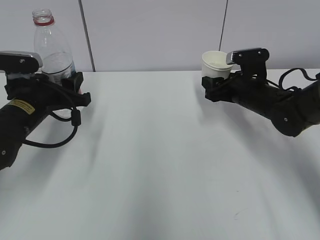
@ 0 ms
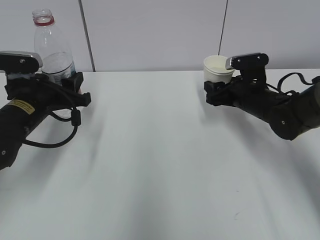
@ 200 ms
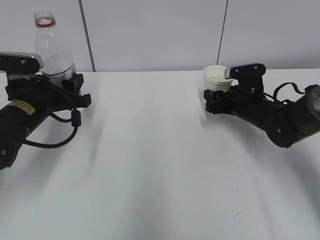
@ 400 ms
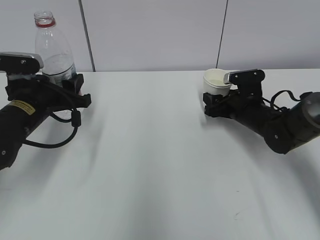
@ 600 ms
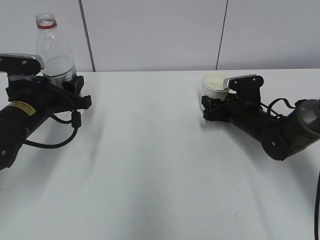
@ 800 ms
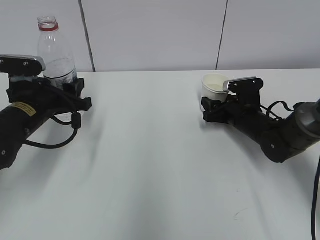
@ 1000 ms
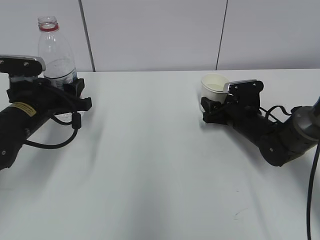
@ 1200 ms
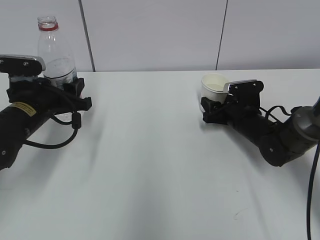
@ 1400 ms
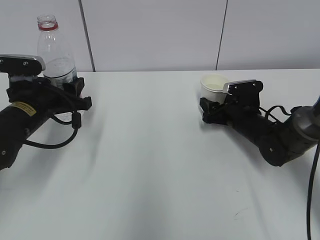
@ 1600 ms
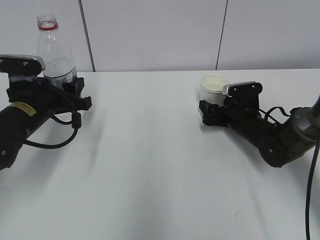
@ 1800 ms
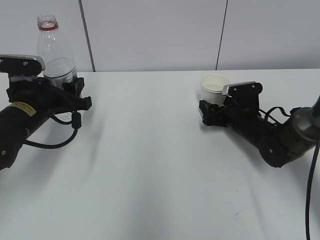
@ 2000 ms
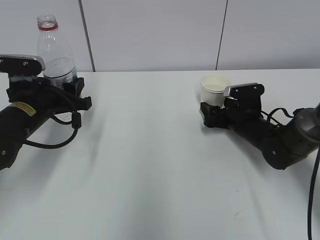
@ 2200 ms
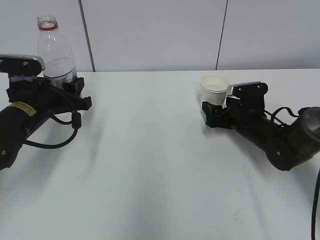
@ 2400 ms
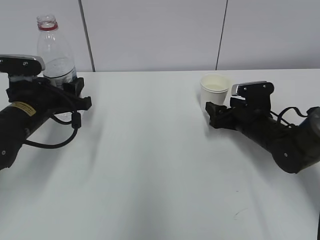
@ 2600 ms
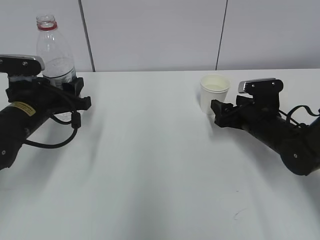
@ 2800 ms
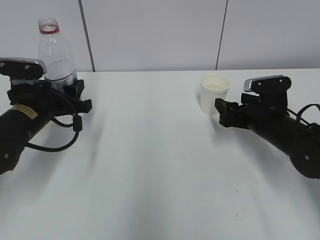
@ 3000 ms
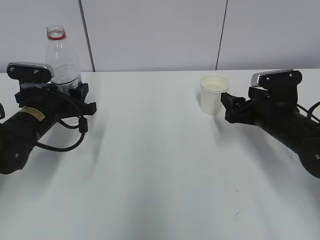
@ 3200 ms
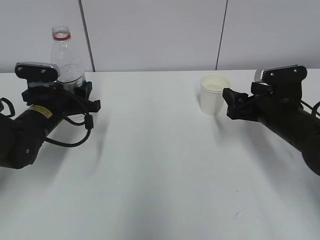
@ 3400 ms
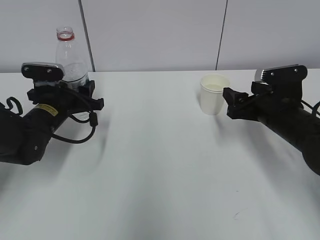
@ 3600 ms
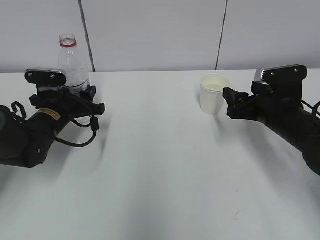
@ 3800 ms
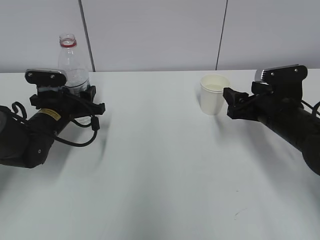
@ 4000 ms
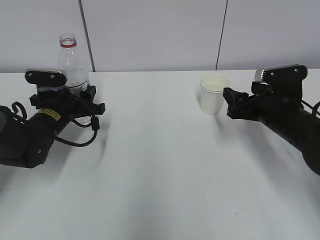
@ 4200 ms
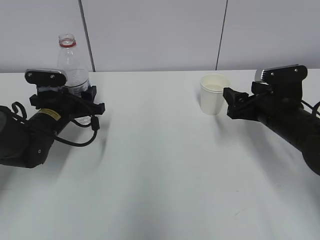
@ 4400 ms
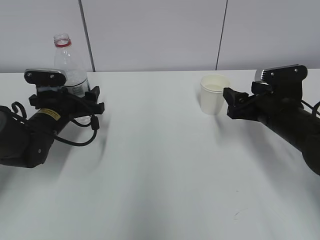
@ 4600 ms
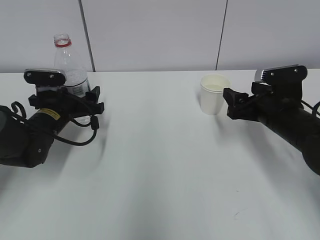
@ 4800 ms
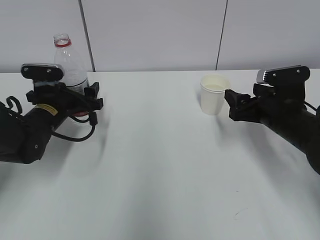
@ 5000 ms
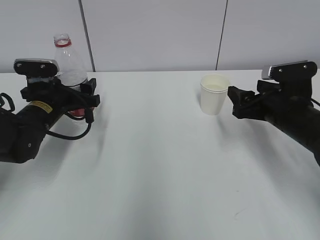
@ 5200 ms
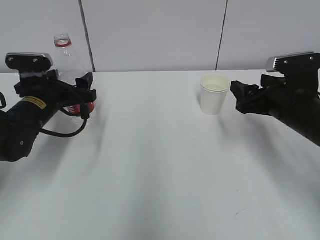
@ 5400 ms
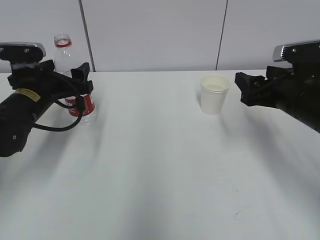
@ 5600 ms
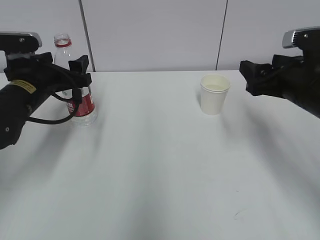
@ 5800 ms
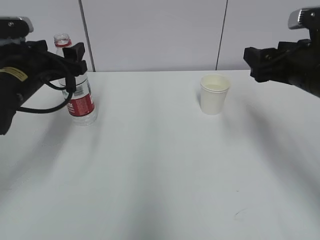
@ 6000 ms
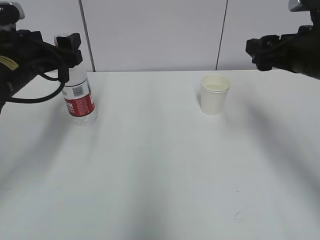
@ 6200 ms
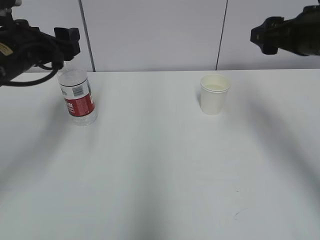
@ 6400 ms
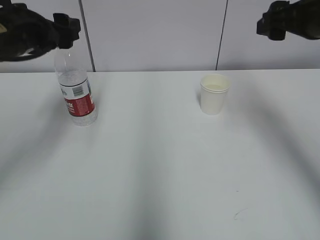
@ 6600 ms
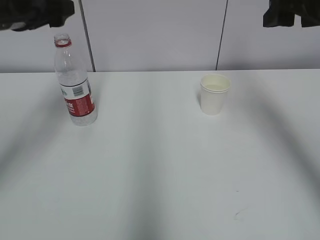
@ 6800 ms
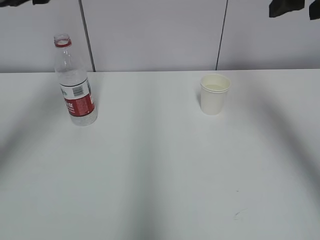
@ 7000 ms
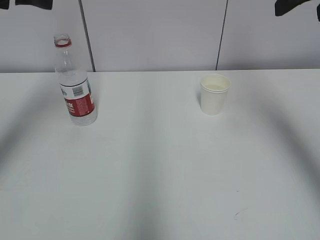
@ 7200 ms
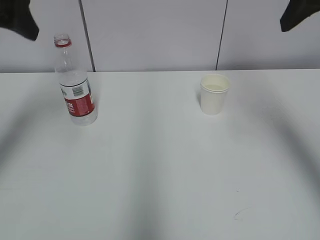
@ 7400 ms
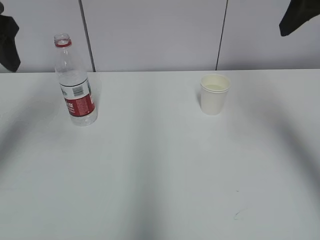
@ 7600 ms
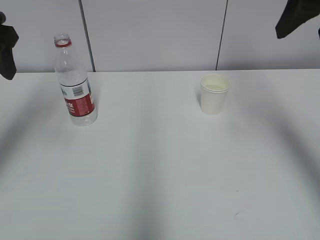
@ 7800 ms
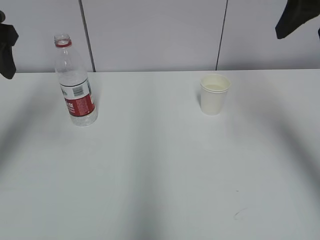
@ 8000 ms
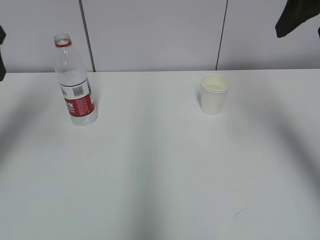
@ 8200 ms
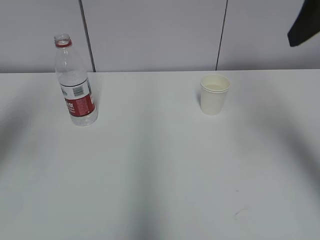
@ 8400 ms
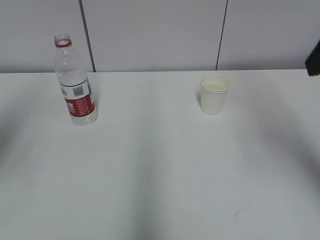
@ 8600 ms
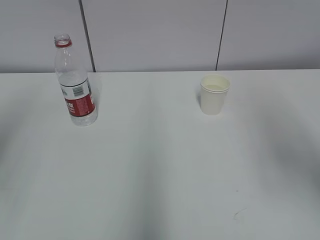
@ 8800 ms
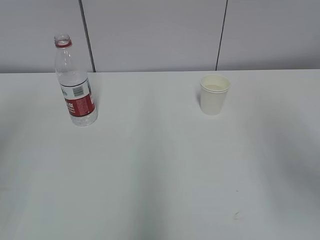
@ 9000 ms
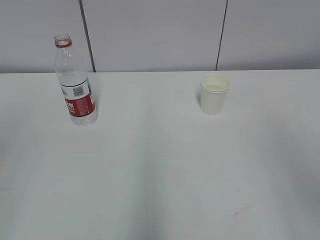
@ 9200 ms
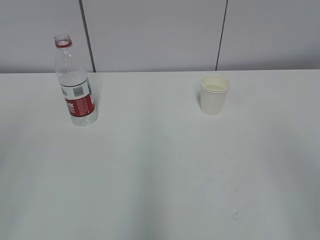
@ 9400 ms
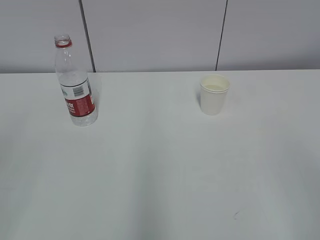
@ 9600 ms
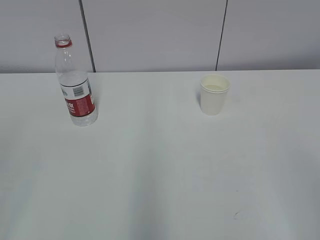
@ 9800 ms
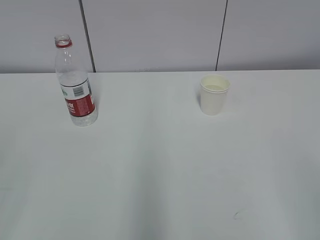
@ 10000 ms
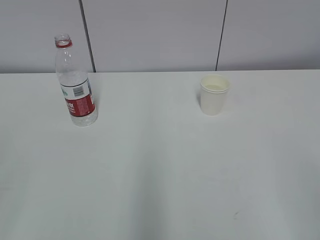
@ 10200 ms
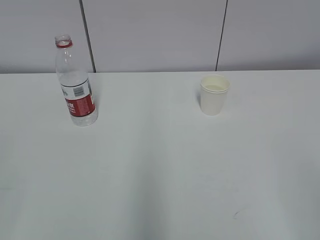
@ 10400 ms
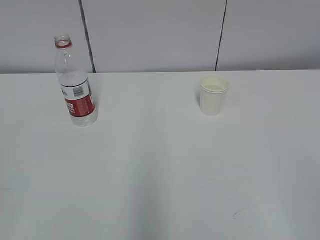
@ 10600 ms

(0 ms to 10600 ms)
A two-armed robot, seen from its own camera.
0 ms - 1600 ms: The right gripper moves downward, about 5 cm, and opens up.
1600 ms - 3000 ms: The right gripper heads backward, covering some 5 cm, and opens up.
3000 ms - 4600 ms: The left gripper shifts by some 5 cm, and opens up.
4600 ms - 6000 ms: The two grippers go some 10 cm upward.
6000 ms - 7600 ms: Both grippers move upward, approximately 15 cm.
7600 ms - 9000 ms: Both grippers move backward, approximately 15 cm. The left gripper closes.
9000 ms - 10600 ms: The right gripper is displaced backward and downward by approximately 15 cm.

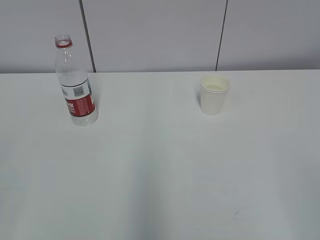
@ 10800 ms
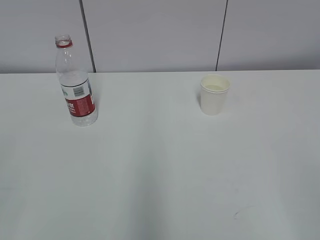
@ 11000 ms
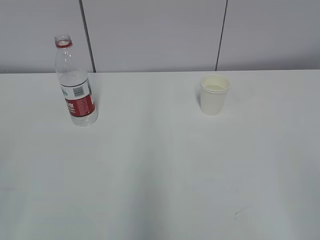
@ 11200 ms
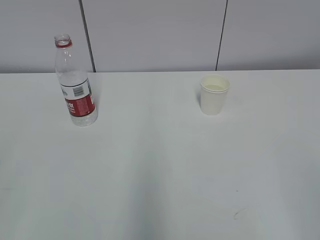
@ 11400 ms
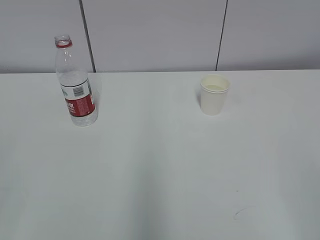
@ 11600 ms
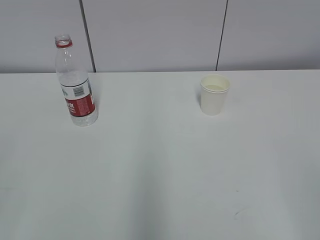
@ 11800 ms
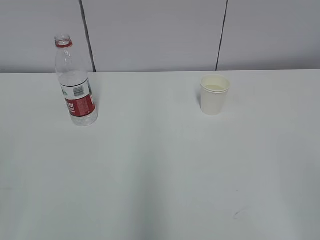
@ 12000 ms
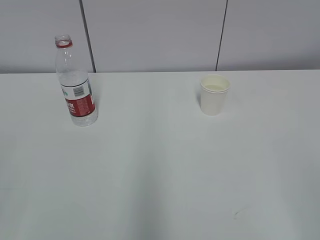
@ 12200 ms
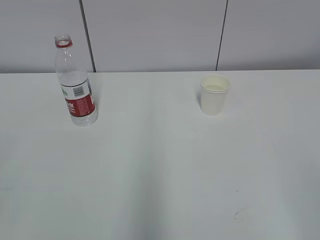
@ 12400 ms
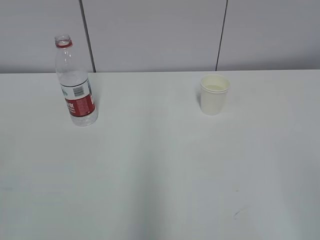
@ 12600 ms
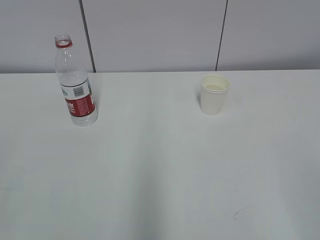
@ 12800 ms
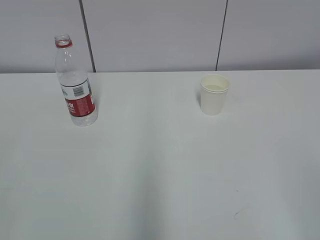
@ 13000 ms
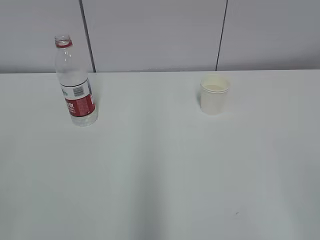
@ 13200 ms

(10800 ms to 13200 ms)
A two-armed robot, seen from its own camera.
10800 ms - 13200 ms: Both grippers stay about where they are.
